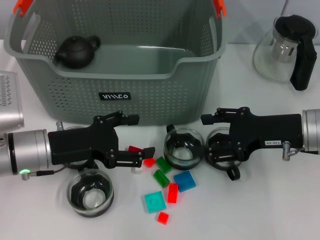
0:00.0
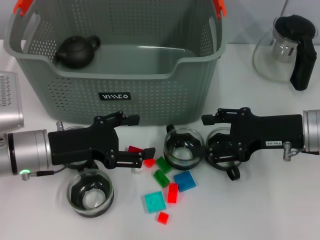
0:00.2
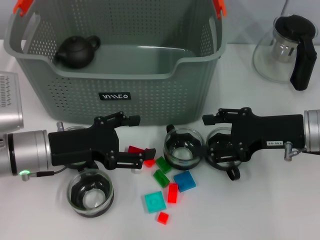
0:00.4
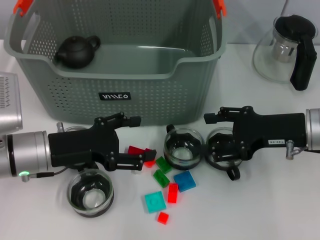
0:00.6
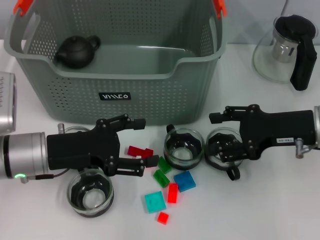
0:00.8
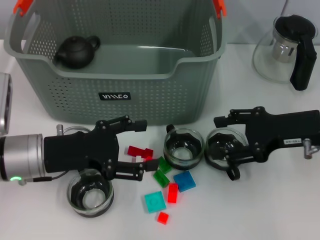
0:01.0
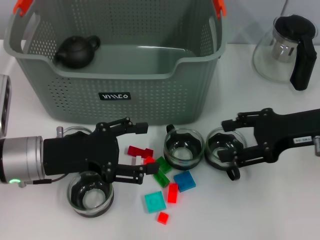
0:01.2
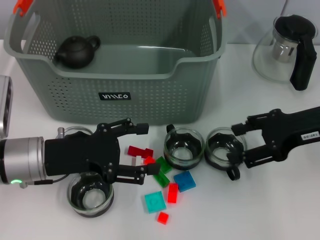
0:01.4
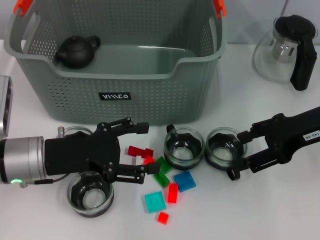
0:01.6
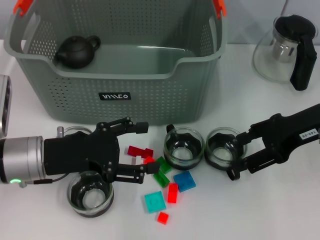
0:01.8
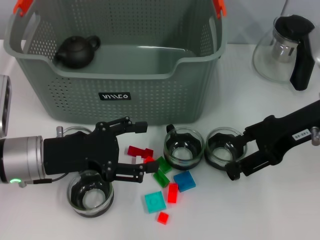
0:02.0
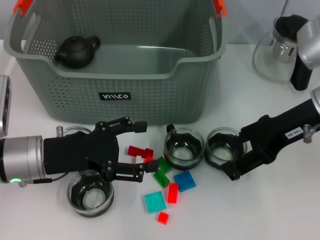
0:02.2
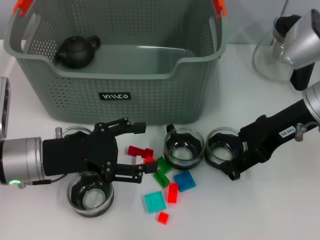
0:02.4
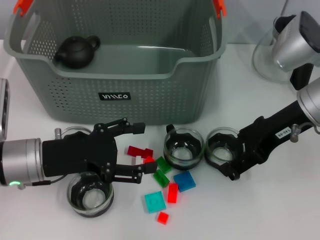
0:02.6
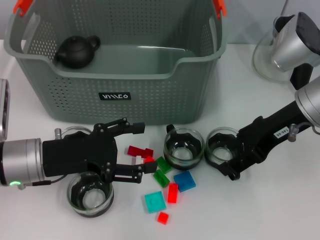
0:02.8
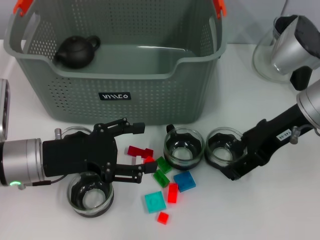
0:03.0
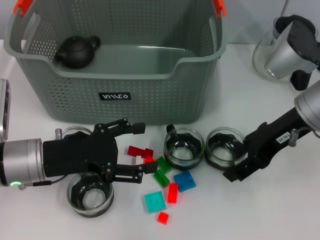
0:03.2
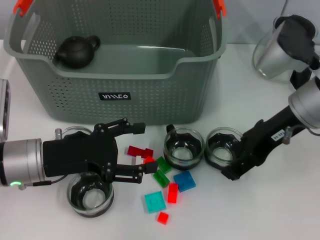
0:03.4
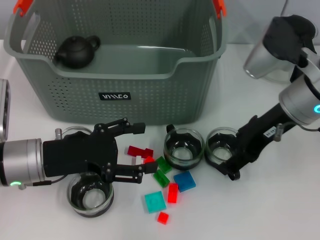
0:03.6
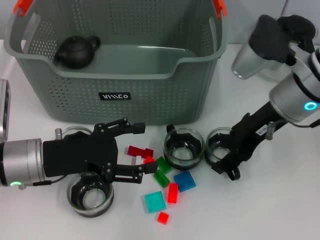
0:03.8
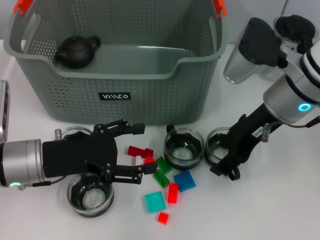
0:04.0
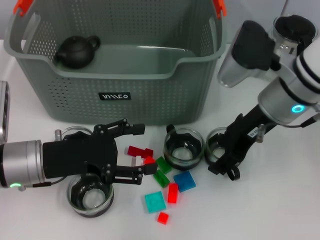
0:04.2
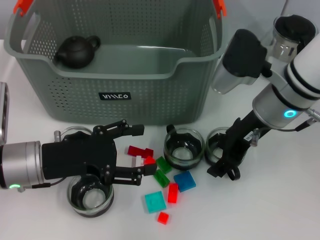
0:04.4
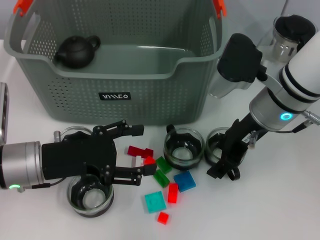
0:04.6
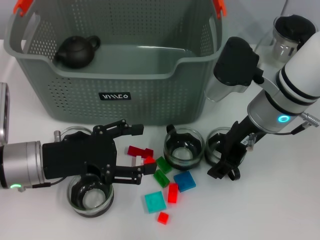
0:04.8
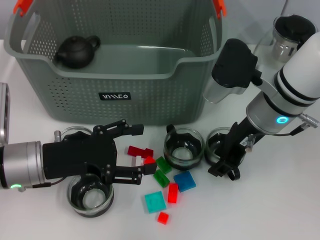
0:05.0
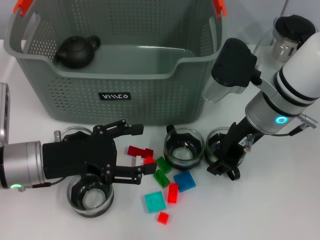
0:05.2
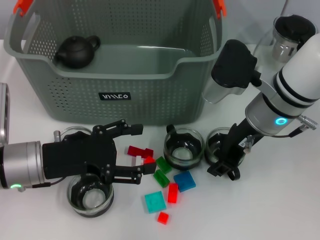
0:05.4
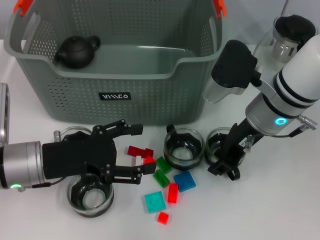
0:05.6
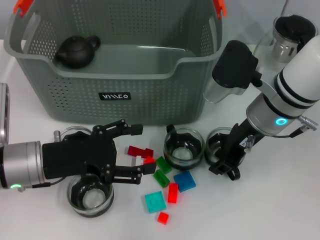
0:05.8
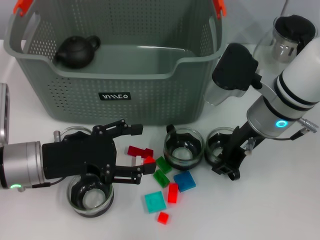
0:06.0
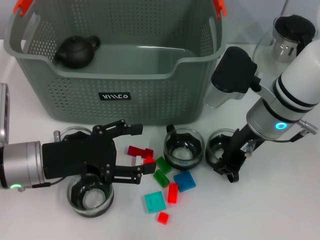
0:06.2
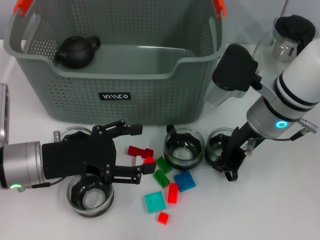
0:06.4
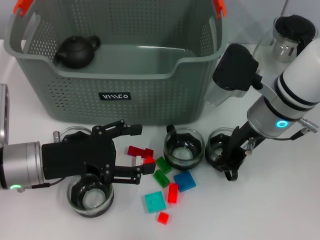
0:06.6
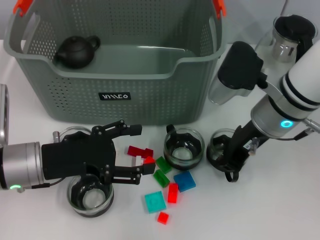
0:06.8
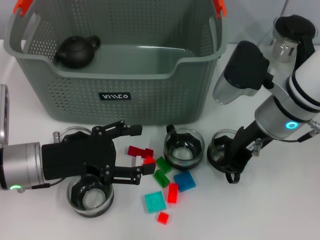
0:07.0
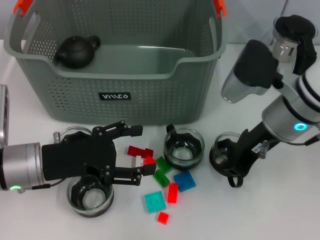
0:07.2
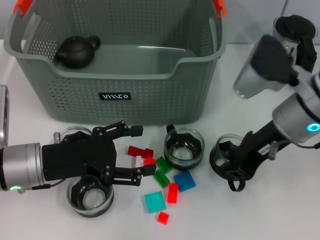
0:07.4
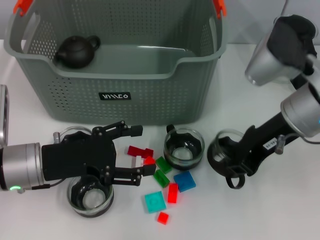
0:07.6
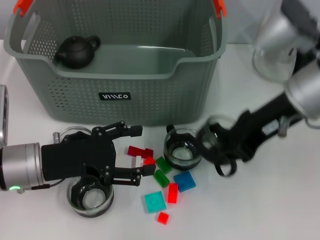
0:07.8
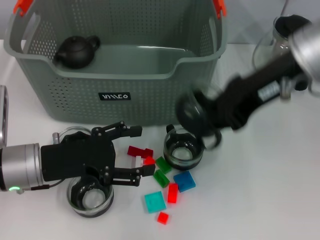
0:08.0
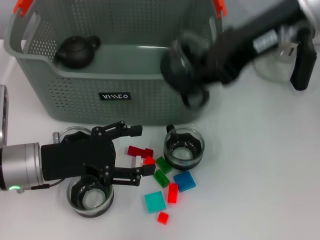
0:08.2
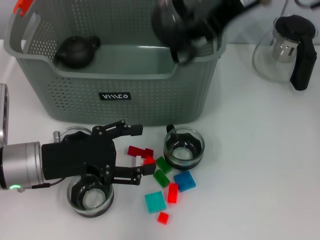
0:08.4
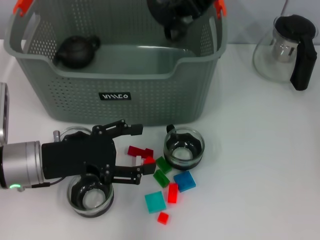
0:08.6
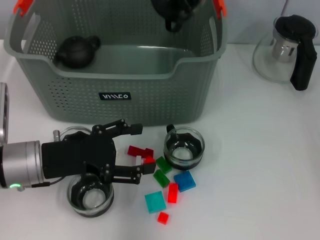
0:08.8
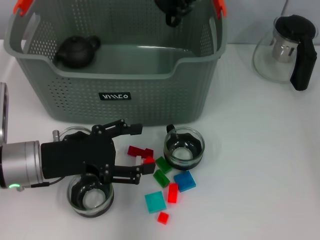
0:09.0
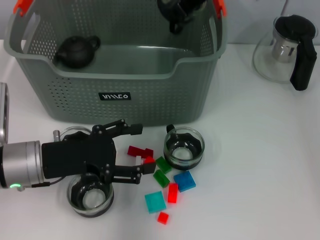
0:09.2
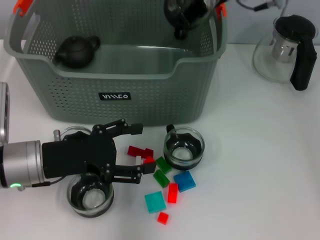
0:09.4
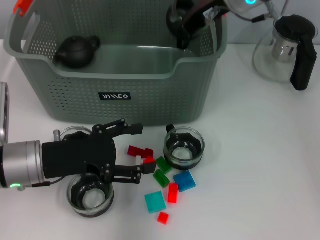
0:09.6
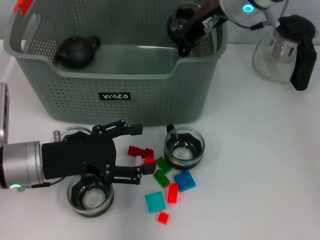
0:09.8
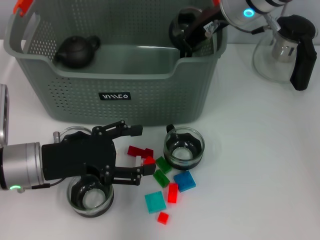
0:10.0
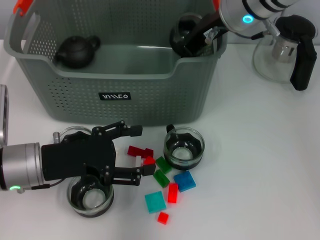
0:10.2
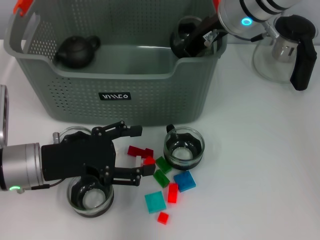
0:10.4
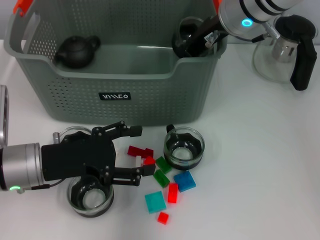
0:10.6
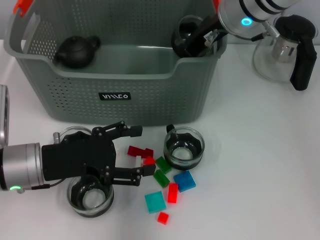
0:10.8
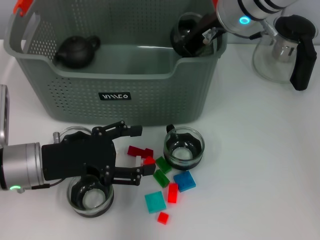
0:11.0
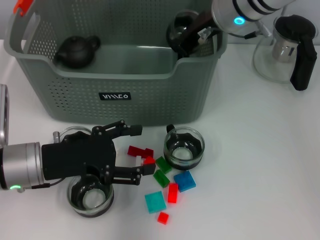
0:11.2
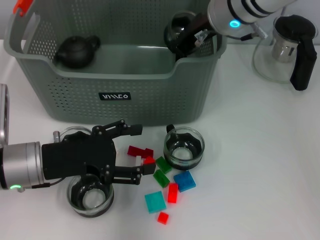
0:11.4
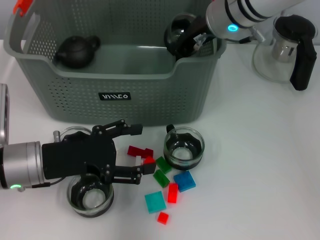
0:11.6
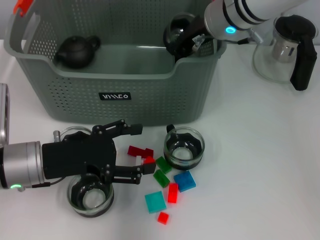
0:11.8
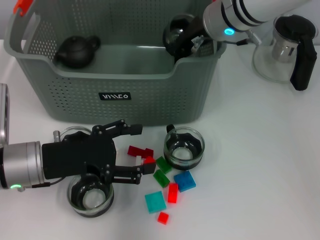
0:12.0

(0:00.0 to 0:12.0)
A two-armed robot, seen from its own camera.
Task of the whole recording: pick up the teacup on the table and place it into the storage bin, pick up the block on the table and place it into the storage bin.
Step, 0:00.0 - 0:06.4: Grasp the cup with right gripper.
0:00.0 - 0:01.6: The right gripper travels upward by roughly 5 cm.
0:01.6 - 0:03.0: The grippers stay close to where they were, moving slightly.
0:03.0 - 0:04.4: The right gripper heads to the left, covering roughly 5 cm.
0:04.4 - 0:06.0: The right gripper closes up.
0:06.0 - 0:07.6: The right gripper ends up roughly 5 cm from where it was, and closes up.
0:07.6 - 0:09.0: The right gripper is displaced upward, forward and to the left by about 20 cm.
0:09.0 - 0:10.4: The right gripper goes roughly 10 cm downward.
0:10.4 - 0:12.0: The grippers move only a little.

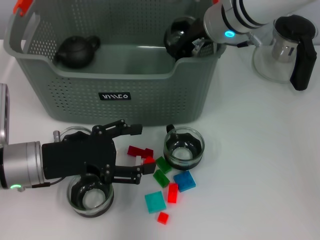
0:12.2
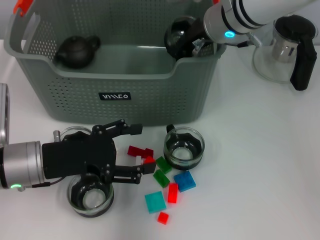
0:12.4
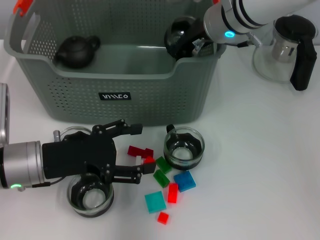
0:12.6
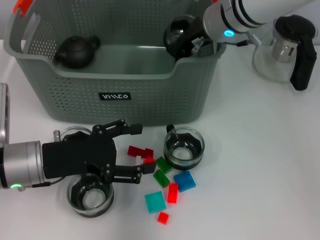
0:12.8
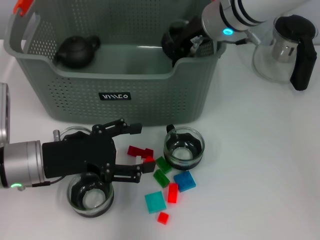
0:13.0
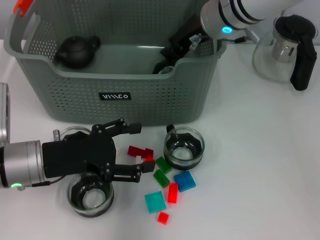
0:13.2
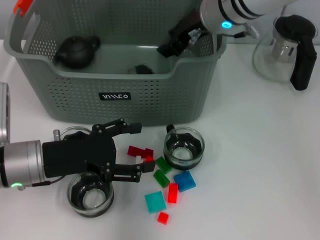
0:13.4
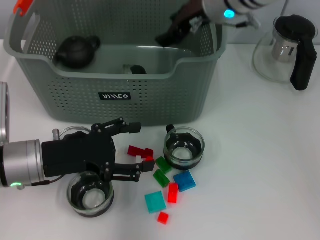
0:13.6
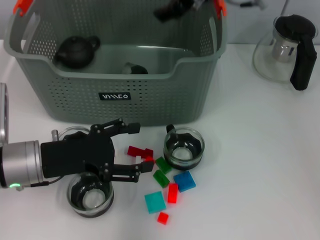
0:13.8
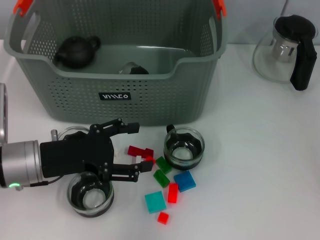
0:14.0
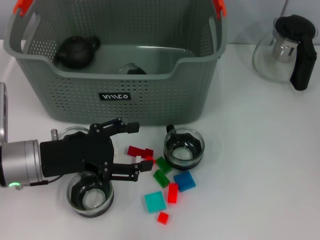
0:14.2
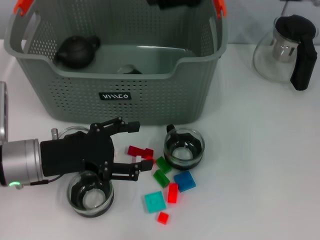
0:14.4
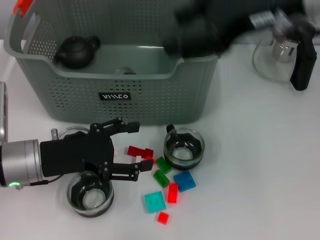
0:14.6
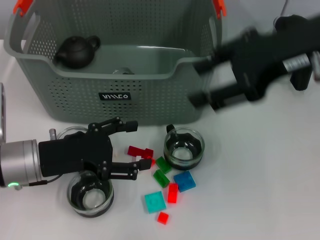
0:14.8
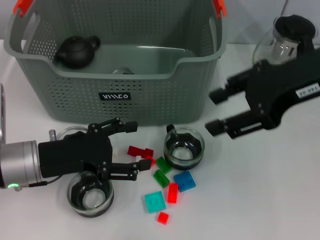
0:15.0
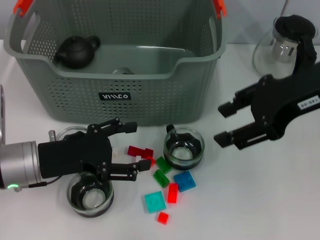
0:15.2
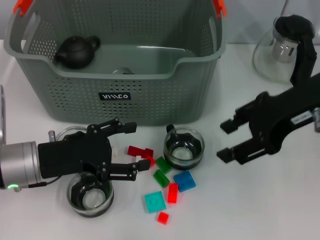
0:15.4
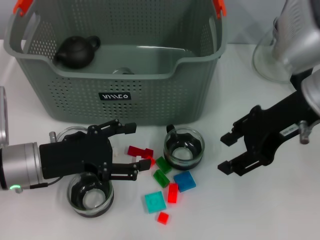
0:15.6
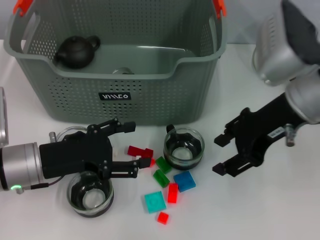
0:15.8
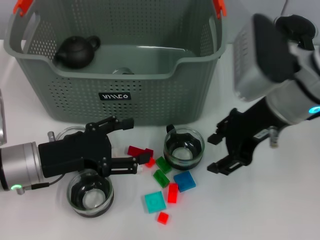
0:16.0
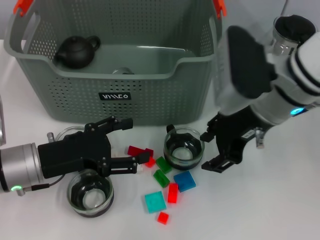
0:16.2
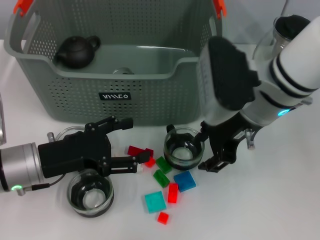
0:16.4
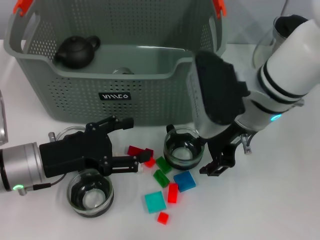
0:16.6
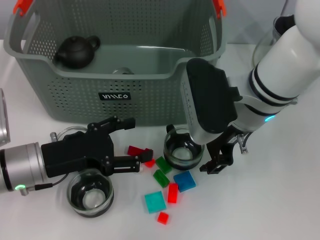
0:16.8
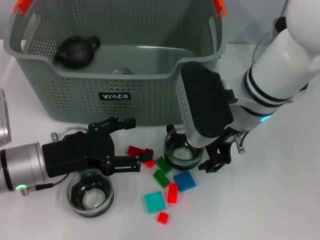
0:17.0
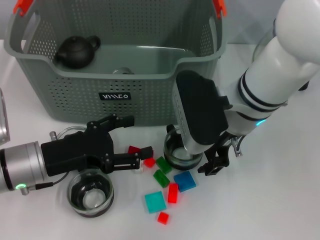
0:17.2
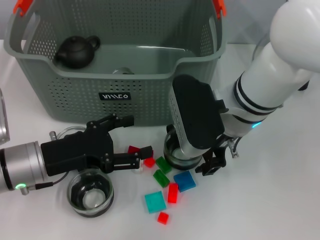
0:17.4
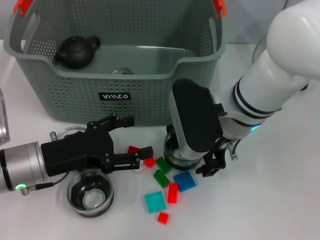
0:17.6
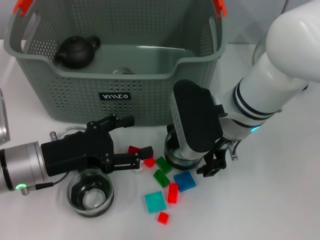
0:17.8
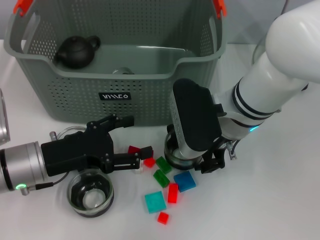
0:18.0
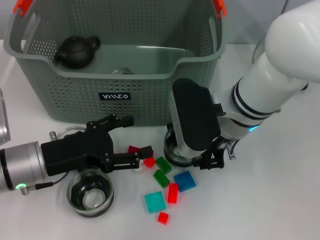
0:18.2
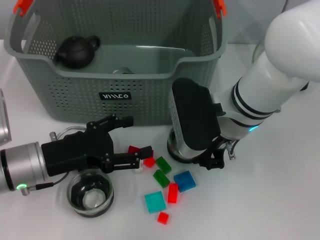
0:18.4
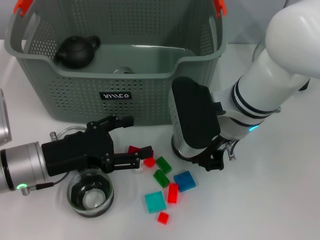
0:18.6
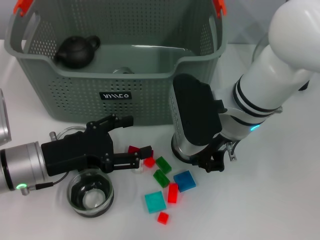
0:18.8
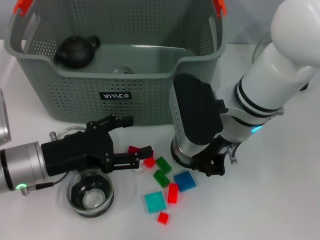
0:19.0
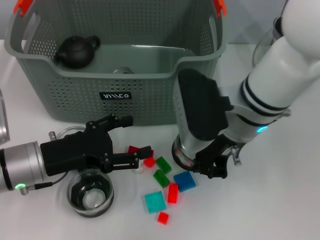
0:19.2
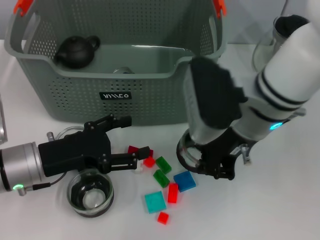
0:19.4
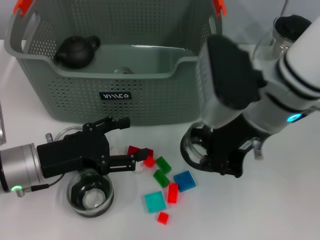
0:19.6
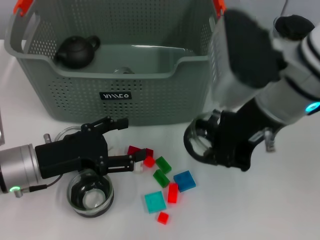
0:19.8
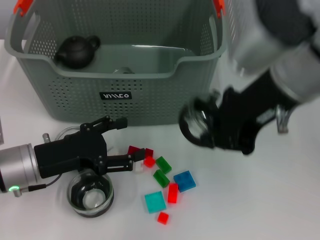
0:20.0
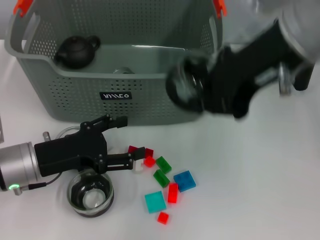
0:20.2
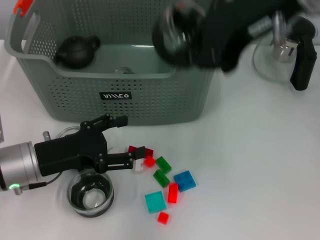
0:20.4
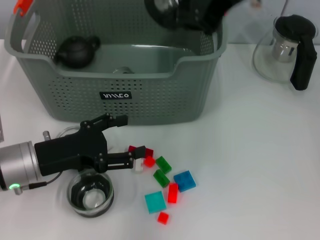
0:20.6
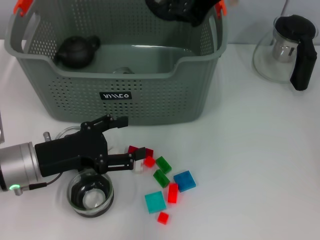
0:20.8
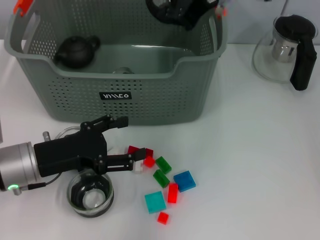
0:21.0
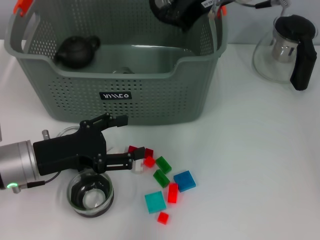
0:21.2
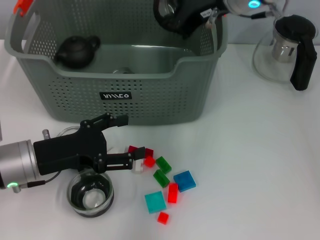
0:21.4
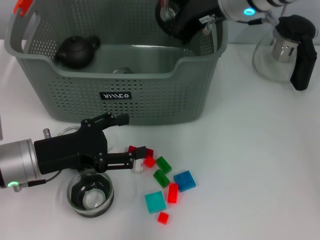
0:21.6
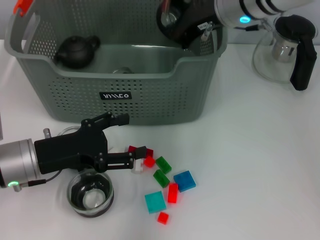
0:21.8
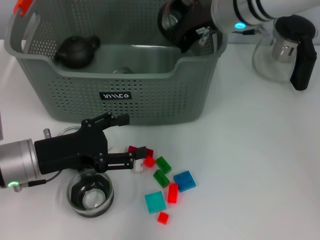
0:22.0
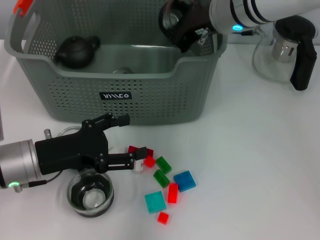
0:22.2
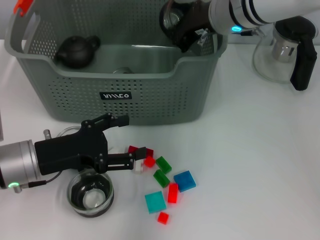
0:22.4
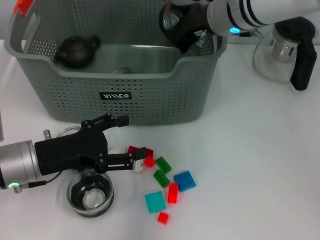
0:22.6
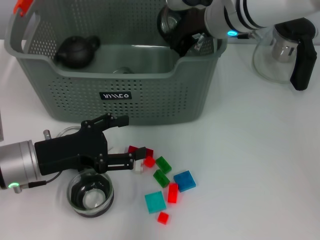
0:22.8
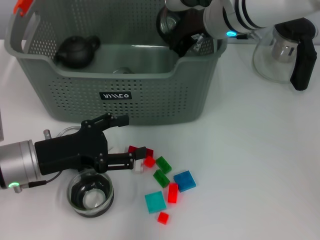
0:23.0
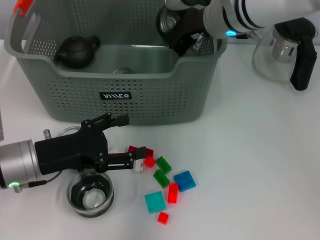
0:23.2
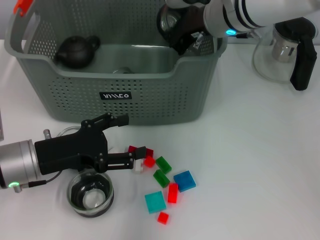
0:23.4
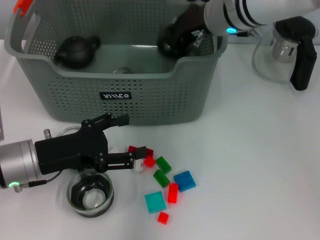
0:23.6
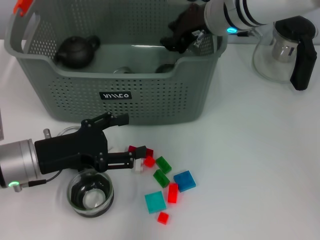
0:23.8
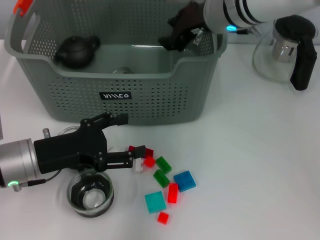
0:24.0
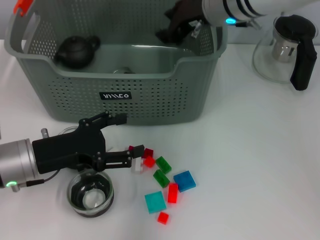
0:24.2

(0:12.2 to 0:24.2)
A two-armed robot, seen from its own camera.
Task of the whole recording: pick up the teacup on the table and place it into the storage bin, pick up the block on the table and place it into the storage bin.
Step, 0:13.4 - 0:18.4: Grasp the cup with right gripper.
Step, 0:18.6 - 0:23.6: Place the cup in the storage box with right gripper.
0:12.2 - 0:13.8: The right gripper moves upward, approximately 5 cm, and opens.
0:13.8 - 0:15.2: The right gripper travels backward and to the right by approximately 20 cm.
0:15.2 - 0:16.6: The right gripper heads to the left and downward, covering about 15 cm.
0:16.6 - 0:18.2: The grippers stay close to where they were, moving slightly.
0:18.2 - 0:19.8: The right gripper travels upward by approximately 10 cm, and closes its fingers.
0:19.8 - 0:21.2: The right gripper moves forward, some 10 cm.
0:21.2 - 0:22.6: The right gripper heads downward, covering about 5 cm.
0:22.6 - 0:24.2: The right gripper opens up.
